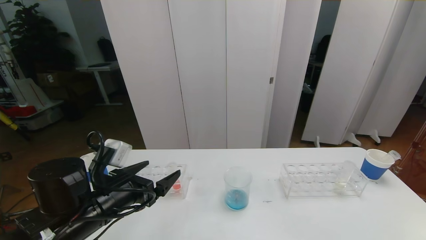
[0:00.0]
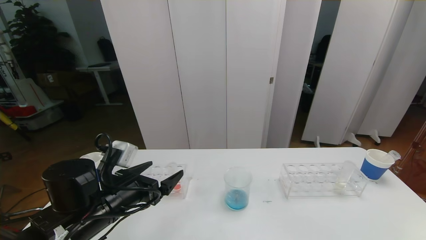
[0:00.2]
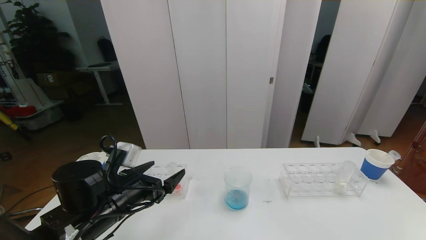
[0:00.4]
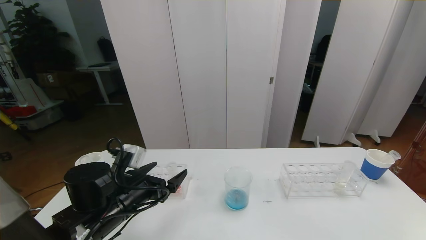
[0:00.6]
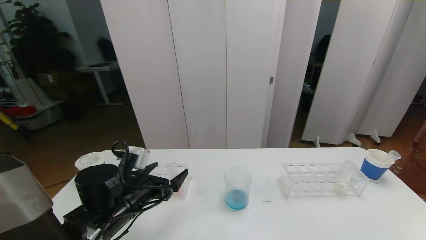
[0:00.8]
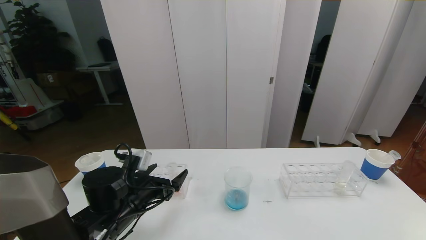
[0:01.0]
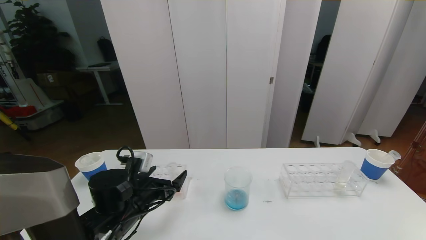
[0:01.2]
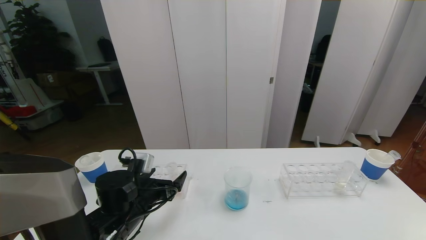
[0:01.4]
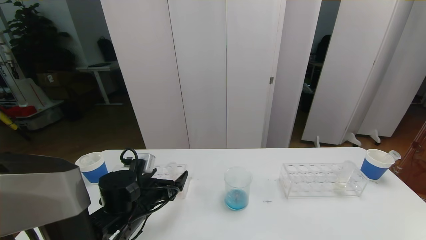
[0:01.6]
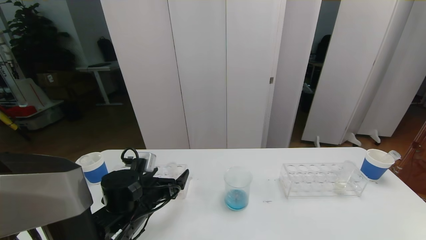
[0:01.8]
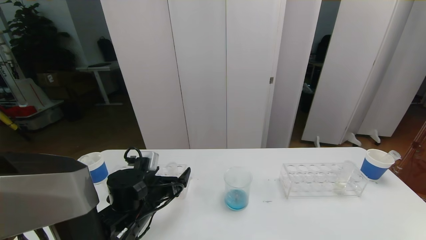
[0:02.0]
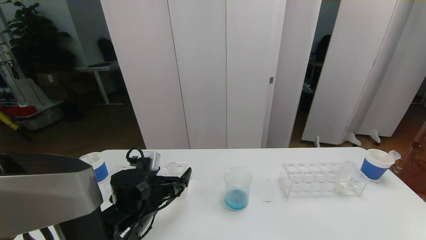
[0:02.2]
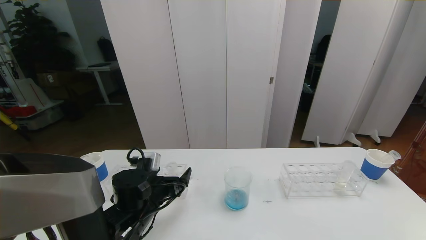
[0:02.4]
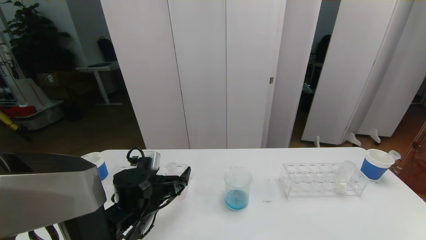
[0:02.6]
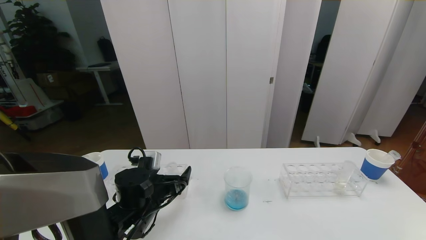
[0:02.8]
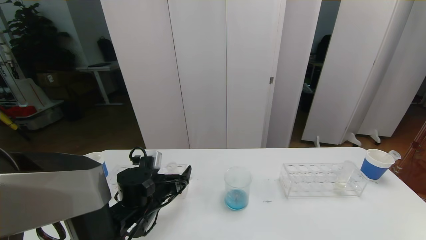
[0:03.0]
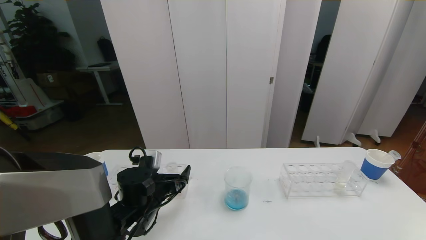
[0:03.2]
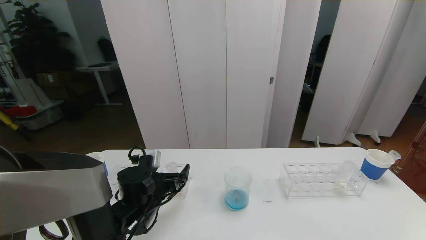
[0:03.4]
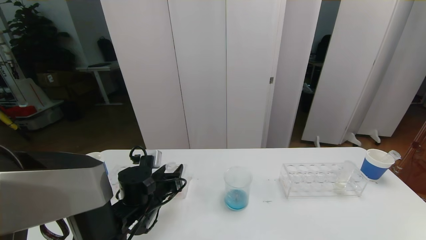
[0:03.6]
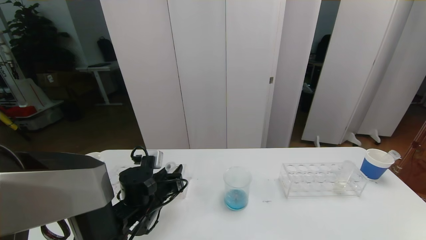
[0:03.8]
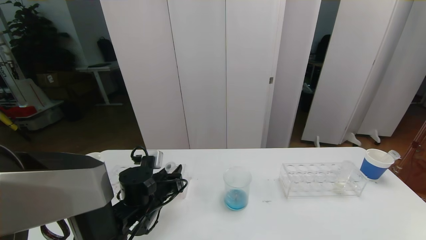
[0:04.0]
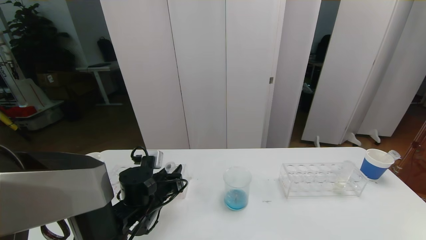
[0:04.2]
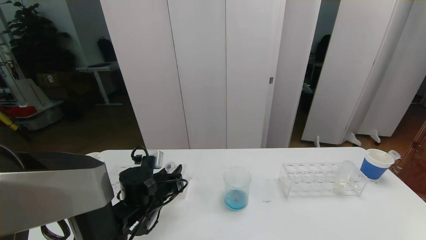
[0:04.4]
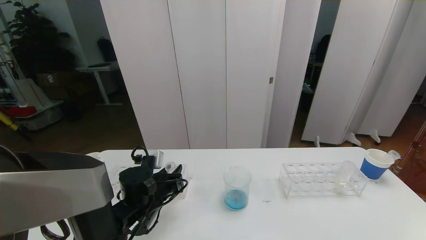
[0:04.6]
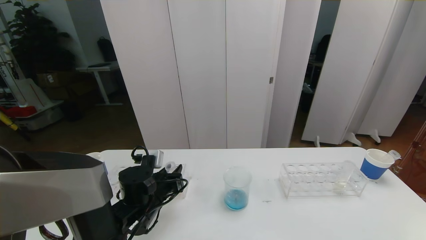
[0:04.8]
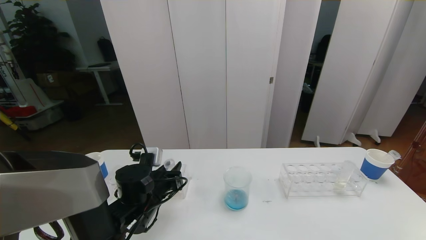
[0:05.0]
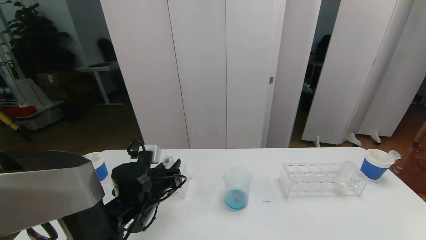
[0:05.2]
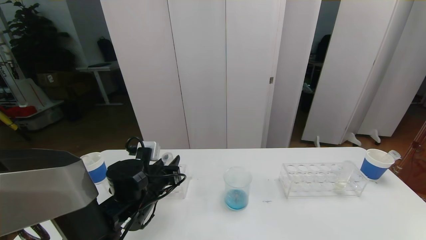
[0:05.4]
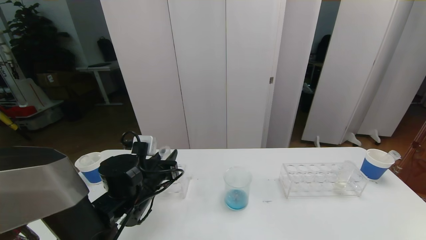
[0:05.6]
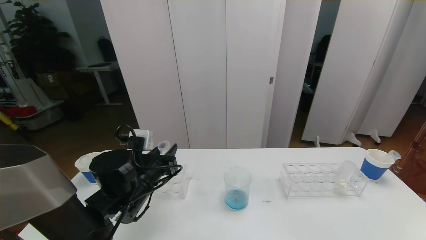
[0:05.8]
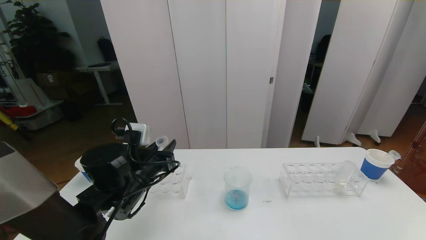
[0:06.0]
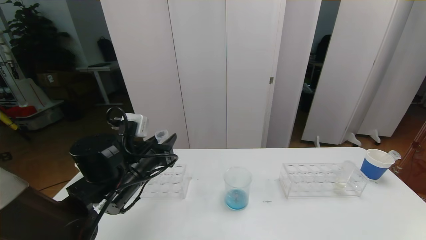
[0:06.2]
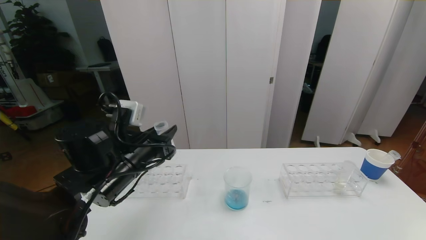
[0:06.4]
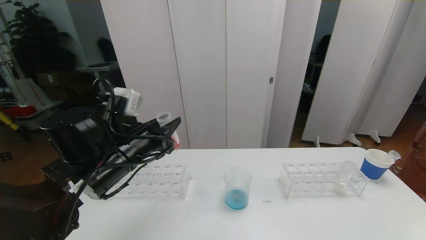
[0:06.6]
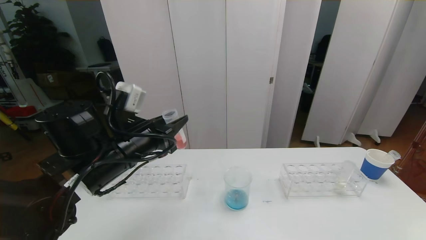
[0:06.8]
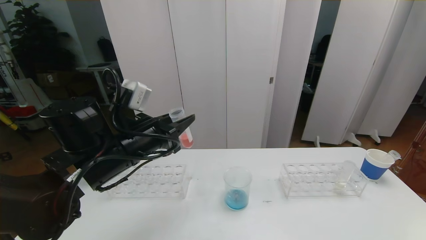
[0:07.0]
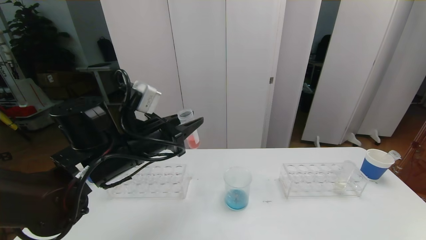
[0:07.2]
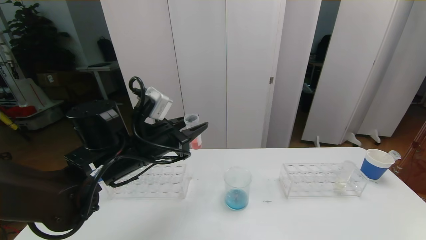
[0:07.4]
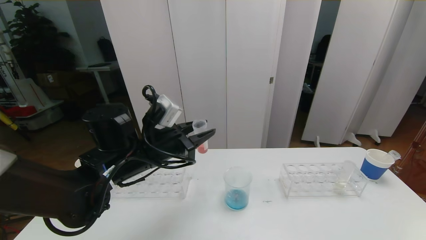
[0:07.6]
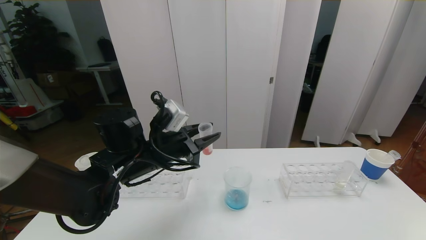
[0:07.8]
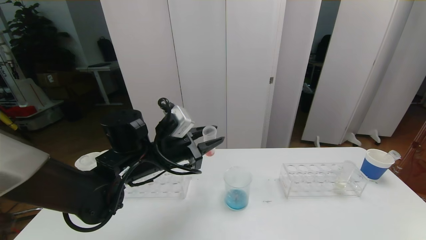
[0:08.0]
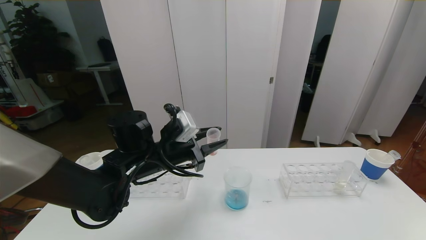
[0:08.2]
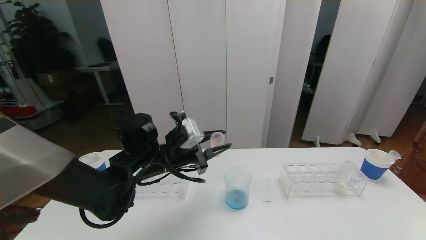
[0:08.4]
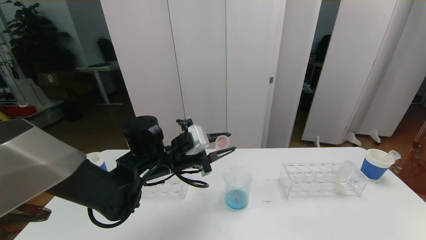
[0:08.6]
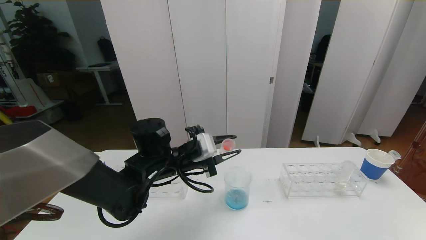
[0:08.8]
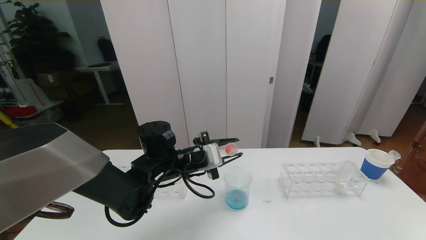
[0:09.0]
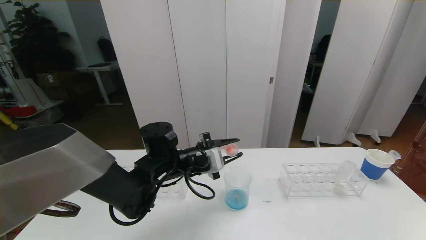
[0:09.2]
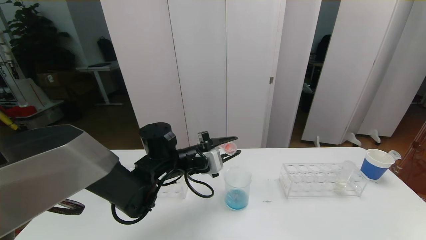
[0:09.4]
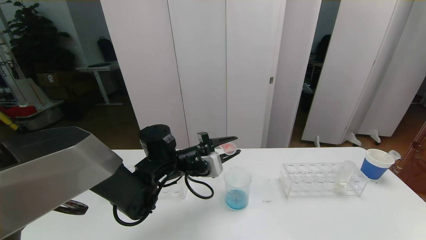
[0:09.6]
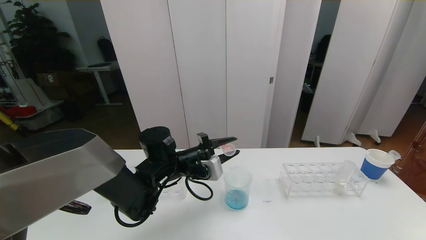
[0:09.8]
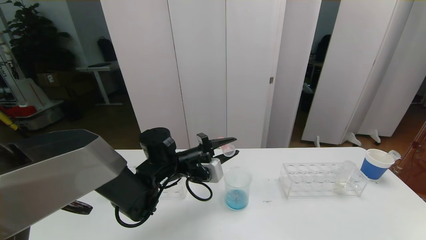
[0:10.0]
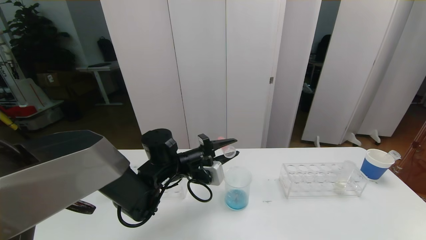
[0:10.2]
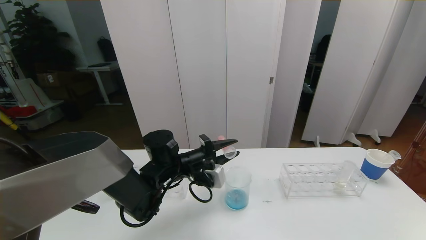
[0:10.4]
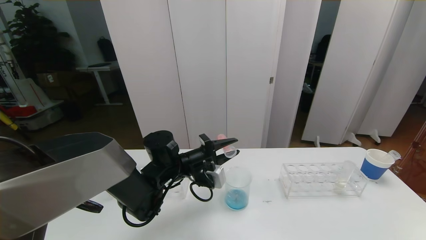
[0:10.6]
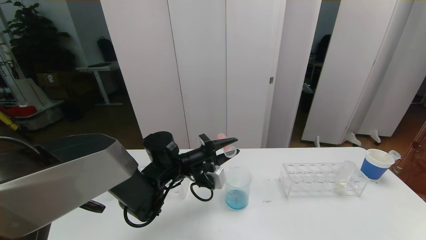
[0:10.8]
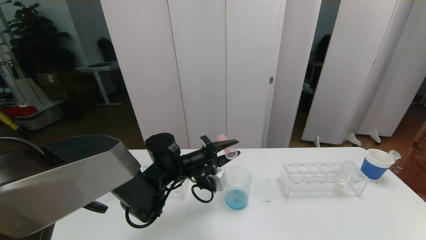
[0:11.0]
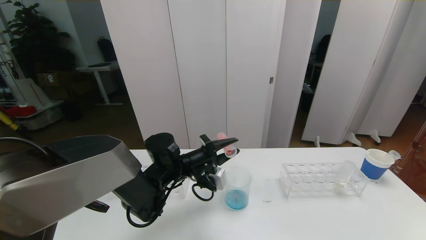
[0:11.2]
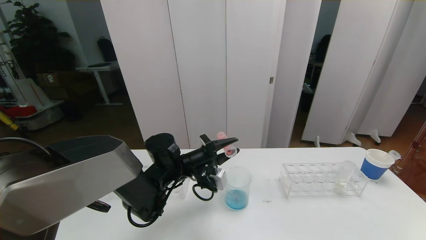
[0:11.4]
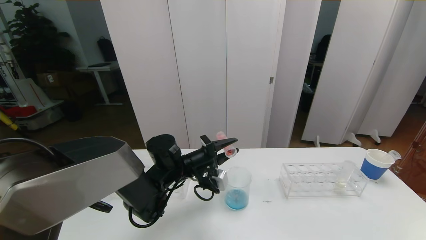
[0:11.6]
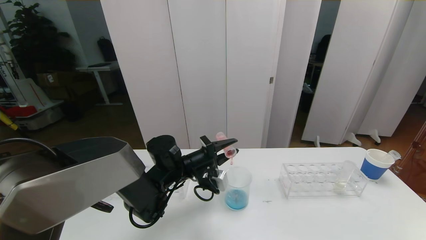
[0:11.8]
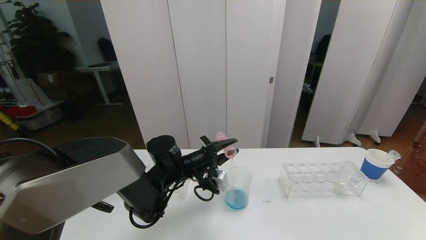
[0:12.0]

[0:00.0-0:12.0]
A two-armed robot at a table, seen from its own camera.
Task of the whole recording: pick up the test tube with red pigment the test tube with blue pigment and the test tube with white pigment by grippers and pour them into the beaker.
0:00.0 to 0:01.6: The left gripper heads downward, covering some 5 cm.
0:01.6 to 0:03.0: The grippers stay close to where they were, moving slightly.
0:03.0 to 0:04.4: The left gripper closes.
0:04.4 to 0:06.0: The left gripper goes about 10 cm upward.
0:06.0 to 0:07.6: The left gripper moves upward, about 5 cm.
0:07.6 to 0:09.0: The left gripper heads downward, covering some 5 cm.
0:10.4 to 0:12.0: The grippers make only small movements.

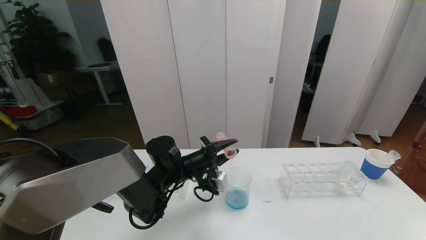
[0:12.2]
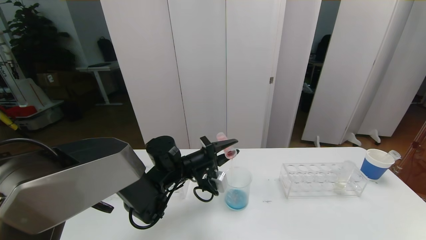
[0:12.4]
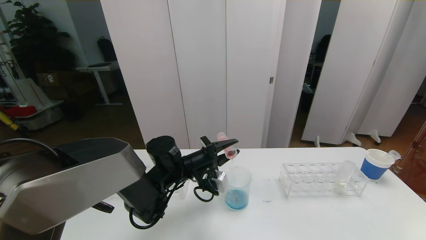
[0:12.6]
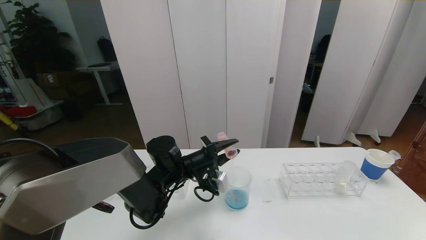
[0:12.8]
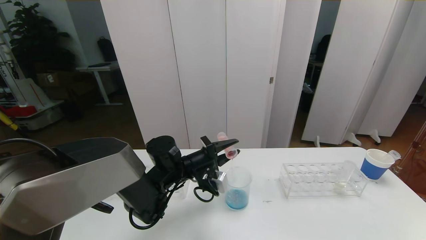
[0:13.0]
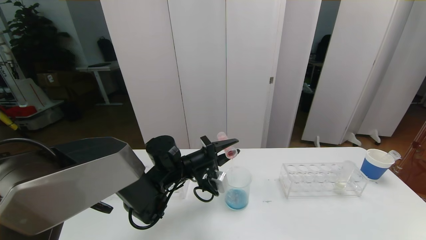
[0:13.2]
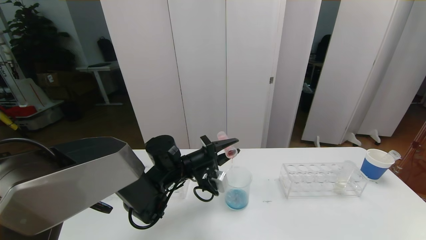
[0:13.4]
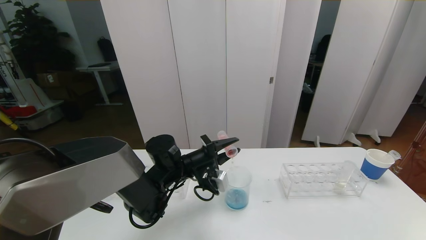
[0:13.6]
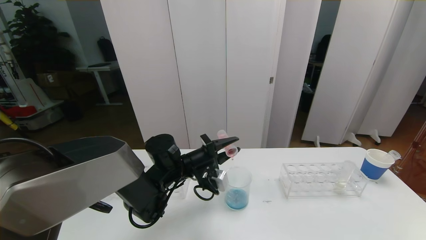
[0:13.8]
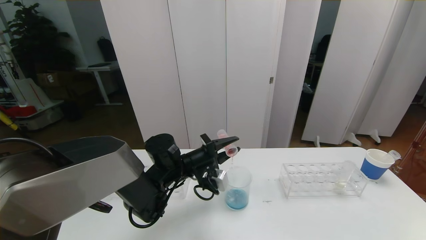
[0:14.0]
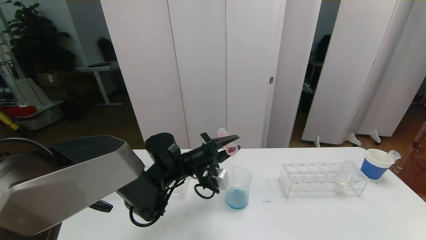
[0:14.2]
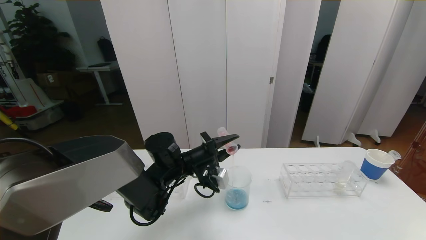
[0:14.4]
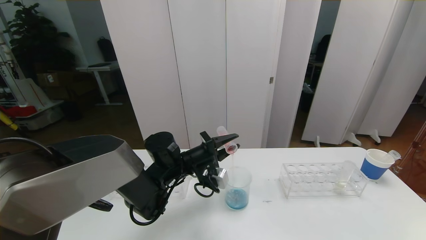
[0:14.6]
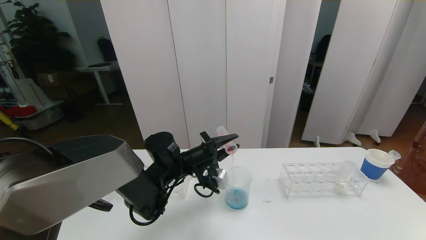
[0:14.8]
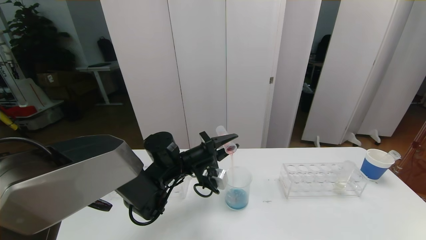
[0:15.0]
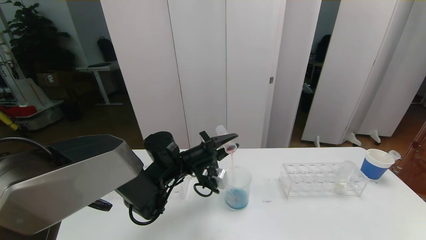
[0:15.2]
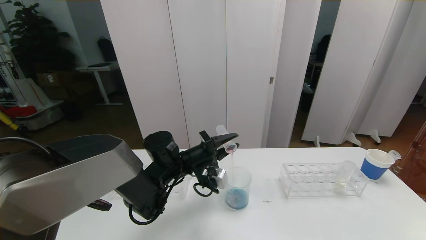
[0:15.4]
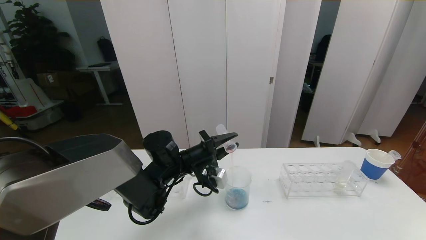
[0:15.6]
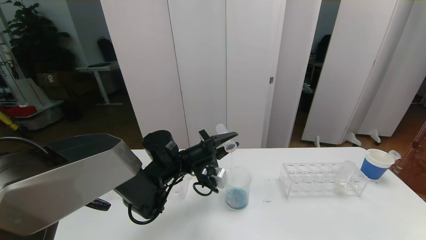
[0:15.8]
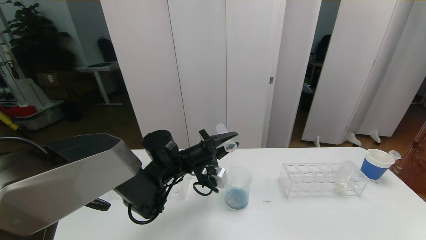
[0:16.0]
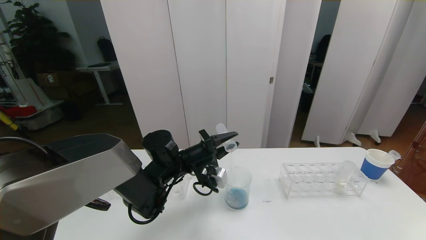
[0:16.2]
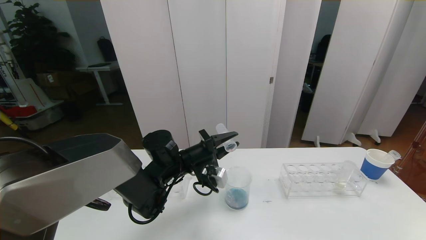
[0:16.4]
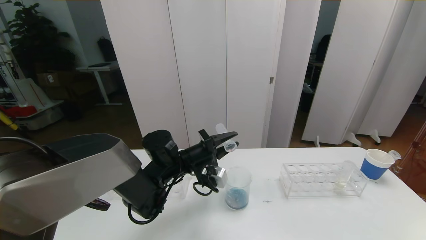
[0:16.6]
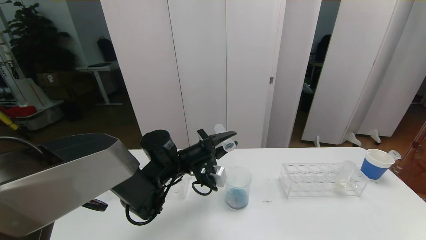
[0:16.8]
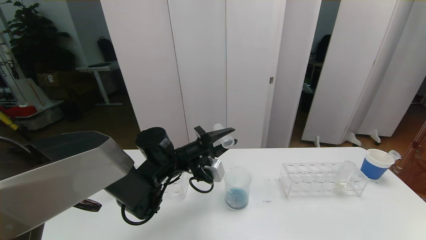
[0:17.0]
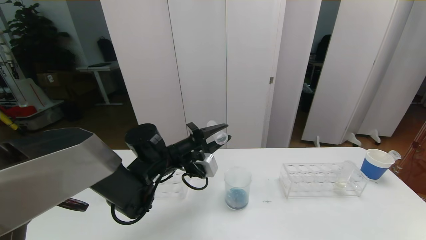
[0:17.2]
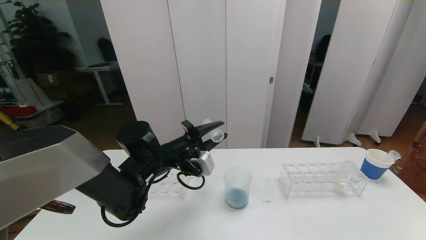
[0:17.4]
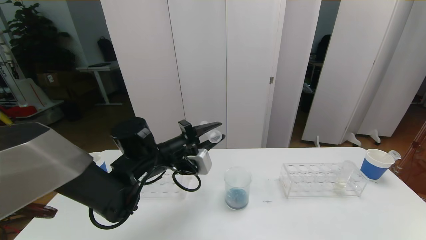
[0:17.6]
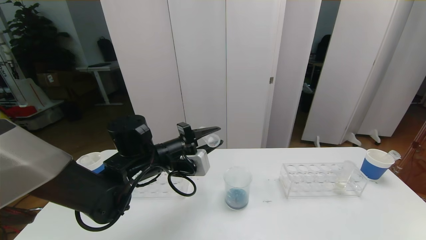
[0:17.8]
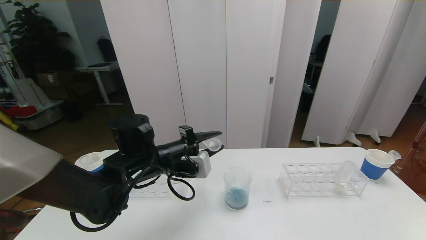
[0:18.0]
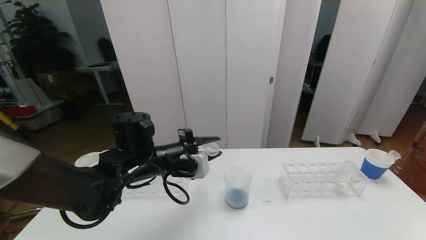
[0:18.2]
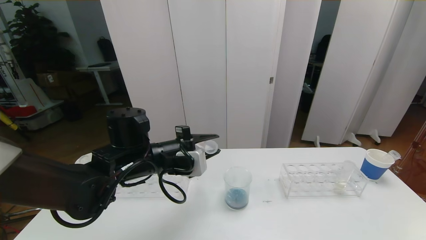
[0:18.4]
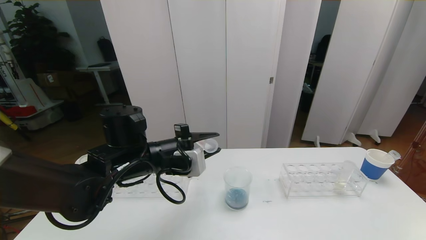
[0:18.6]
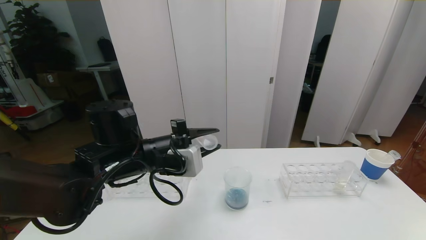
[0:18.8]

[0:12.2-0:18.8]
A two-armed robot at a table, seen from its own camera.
Task of the whole recording: pick up the test tube with red pigment the test tube with blue pigment and the test tube with white pigment by grippers and pour them into the beaker.
0:12.2 to 0:13.8: Both grippers stay put.
0:13.8 to 0:15.4: The two grippers keep their place.
0:15.4 to 0:17.2: The grippers make only small movements.
0:17.2 to 0:18.8: The left gripper heads upward and backward, covering some 10 cm.
